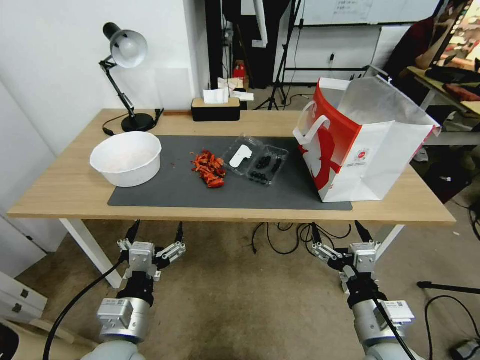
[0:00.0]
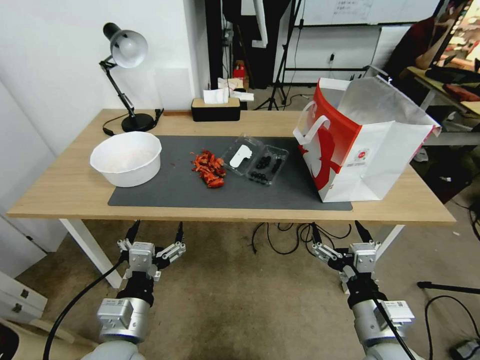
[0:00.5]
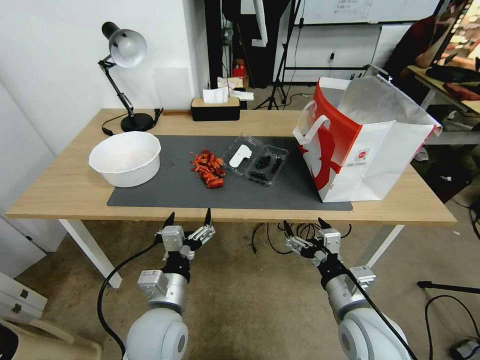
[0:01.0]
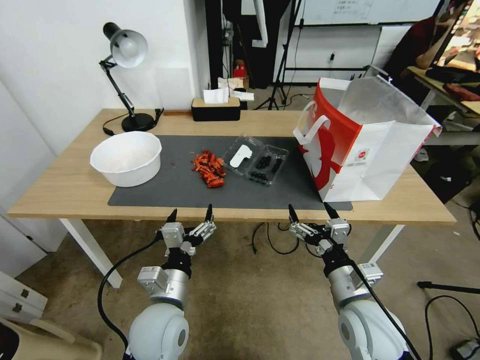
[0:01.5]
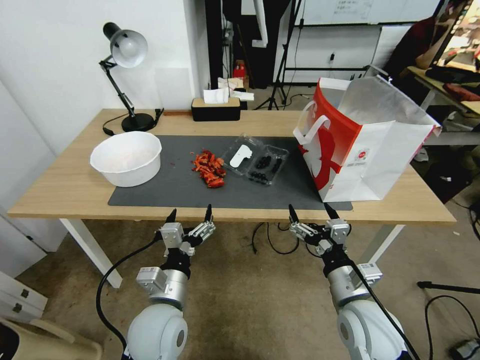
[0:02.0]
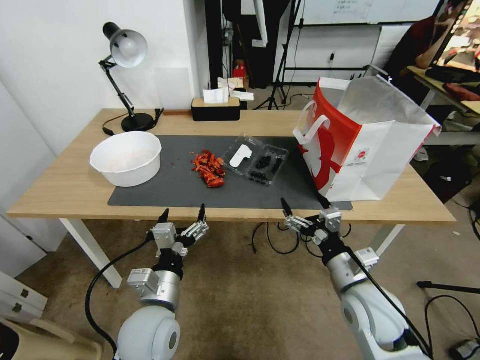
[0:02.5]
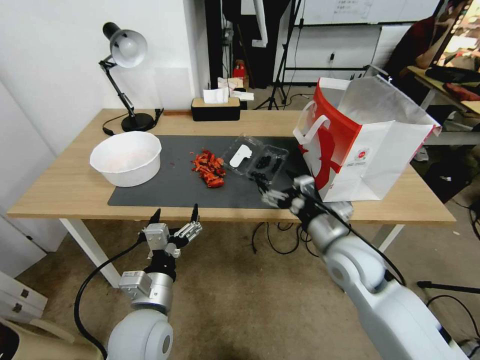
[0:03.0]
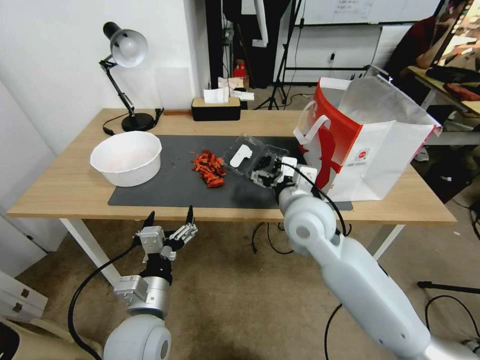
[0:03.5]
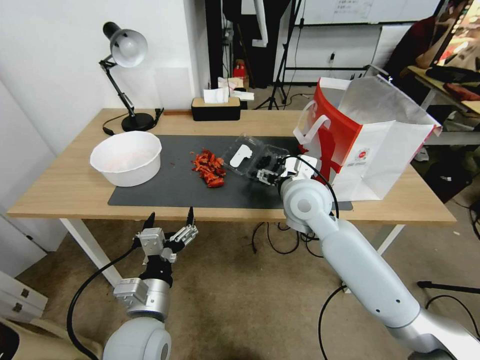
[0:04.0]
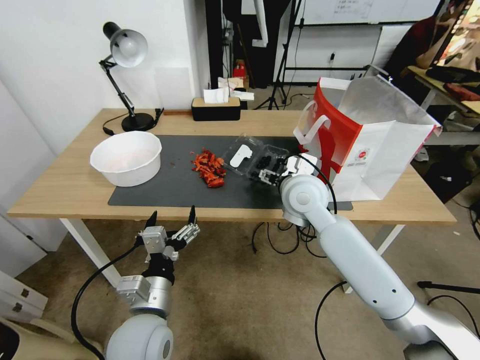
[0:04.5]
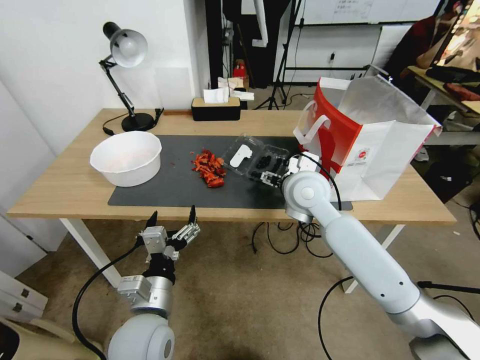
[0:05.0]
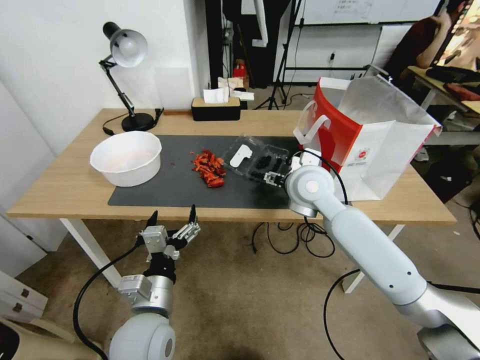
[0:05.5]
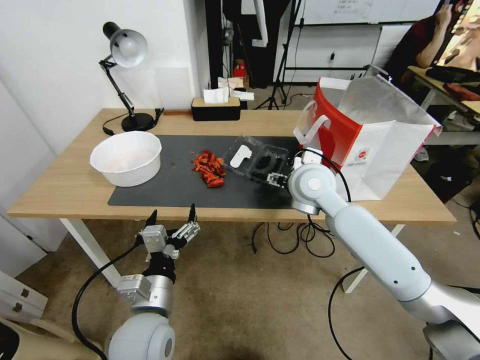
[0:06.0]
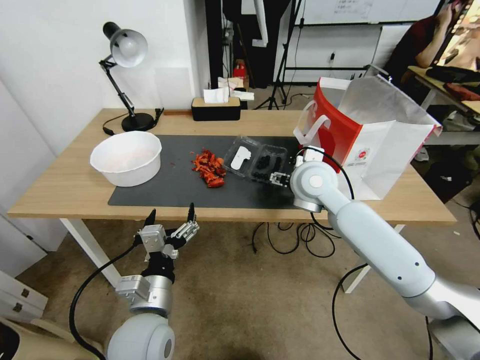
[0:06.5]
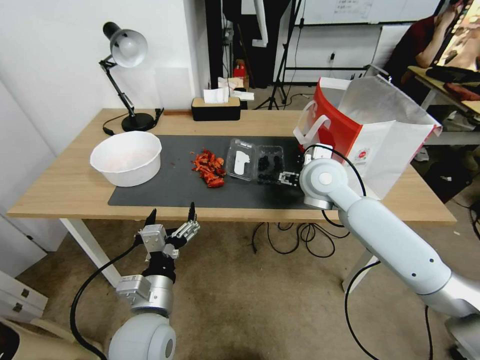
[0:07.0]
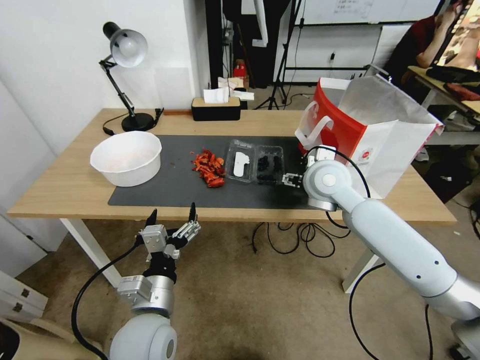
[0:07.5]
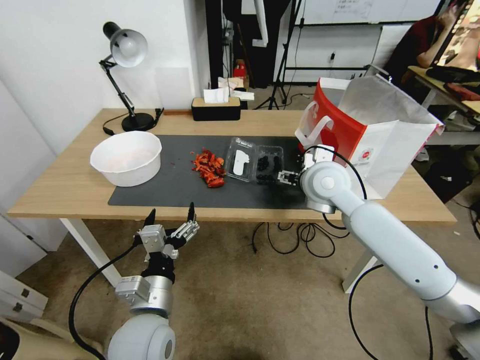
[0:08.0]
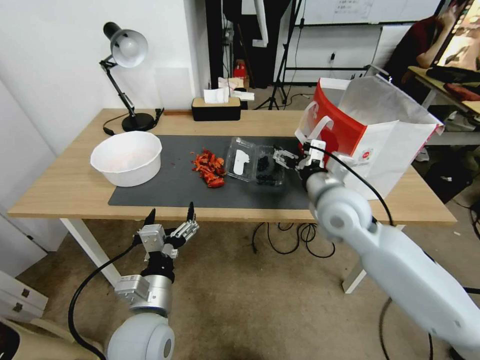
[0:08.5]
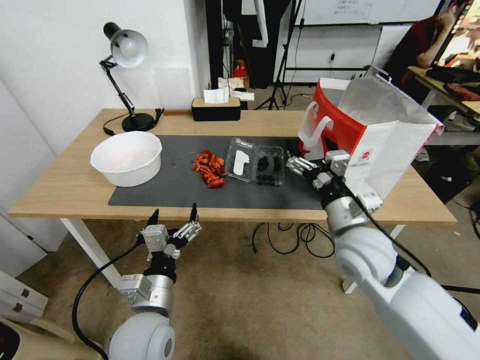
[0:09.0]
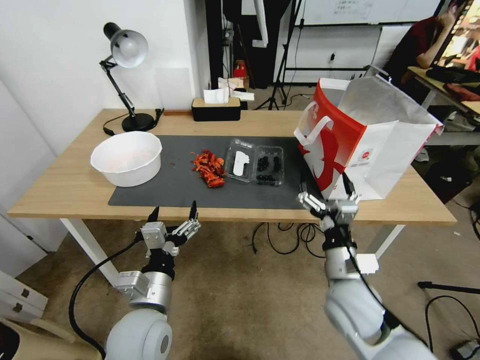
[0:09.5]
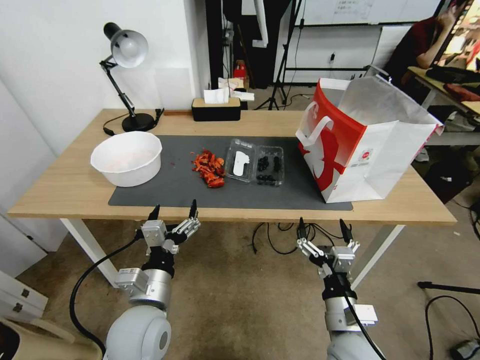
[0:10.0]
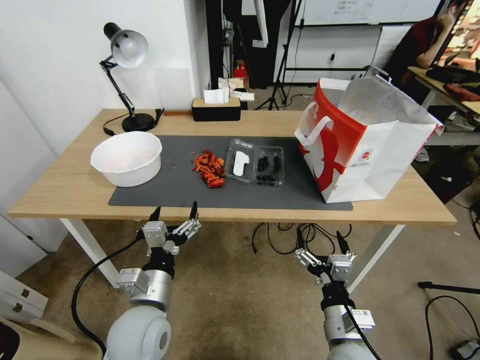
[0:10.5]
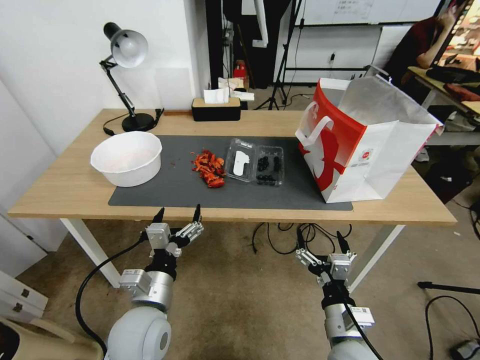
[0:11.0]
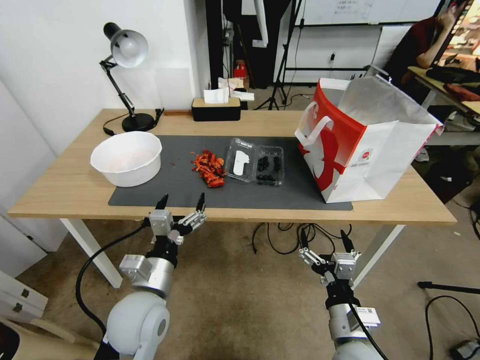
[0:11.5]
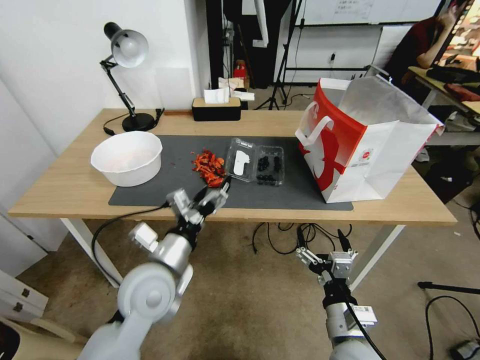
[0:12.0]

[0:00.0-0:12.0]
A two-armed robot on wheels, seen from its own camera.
0:02.0 to 0:04.0: The right gripper shifts roughly 25 cm forward, upward and to the left.
0:04.0 to 0:06.0: The grippers make only small movements.
0:06.0 to 0:08.0: The grippers stay close to where they were, moving slightly.
0:08.0 to 0:10.0: The right gripper is displaced backward and downward by approximately 35 cm.
0:10.0 to 0:12.0: The left gripper is displaced forward by roughly 5 cm.

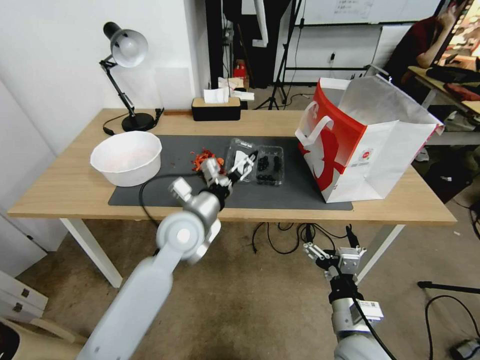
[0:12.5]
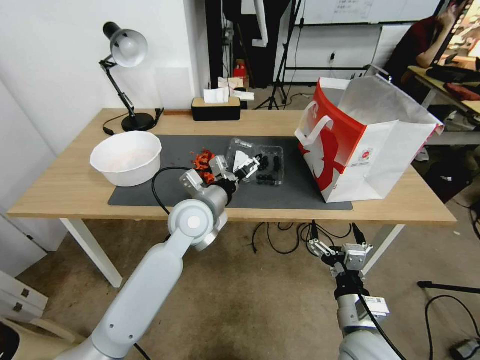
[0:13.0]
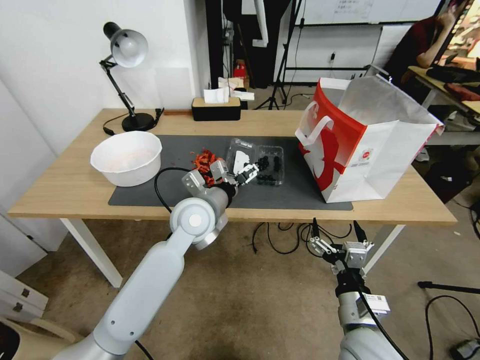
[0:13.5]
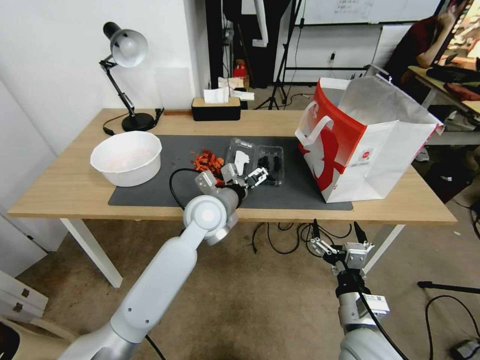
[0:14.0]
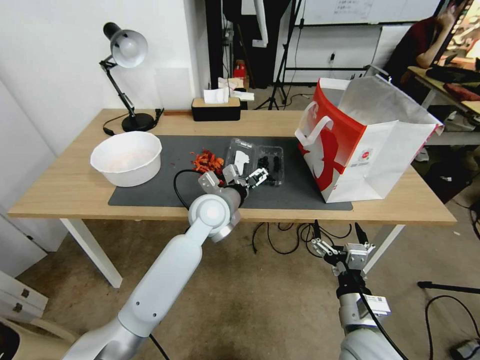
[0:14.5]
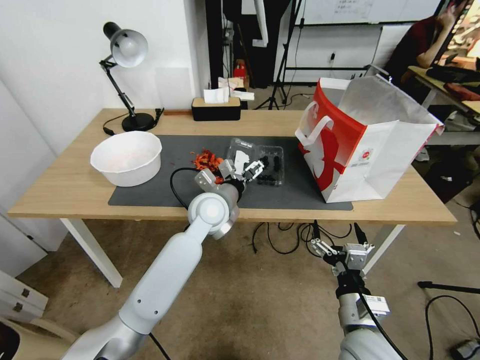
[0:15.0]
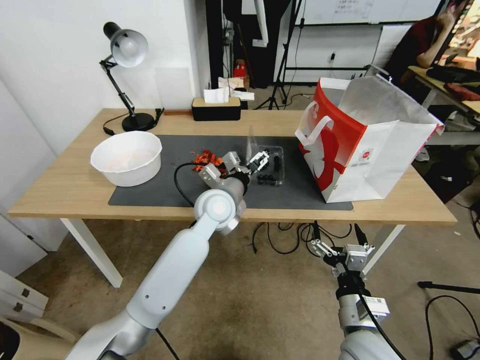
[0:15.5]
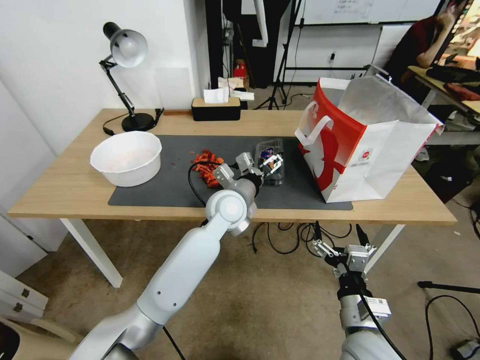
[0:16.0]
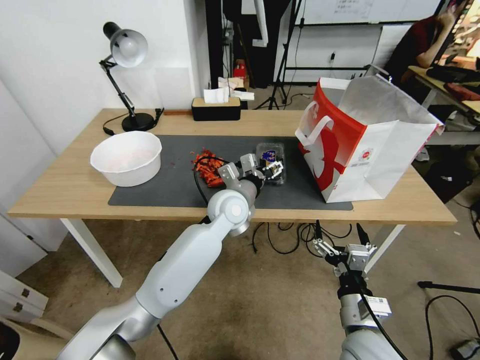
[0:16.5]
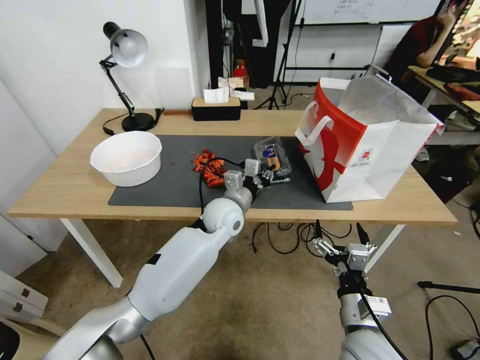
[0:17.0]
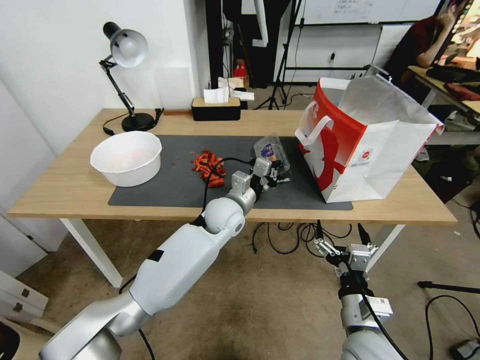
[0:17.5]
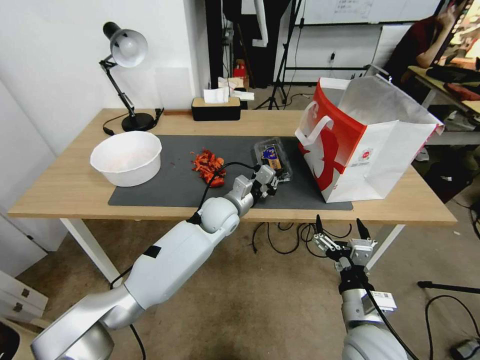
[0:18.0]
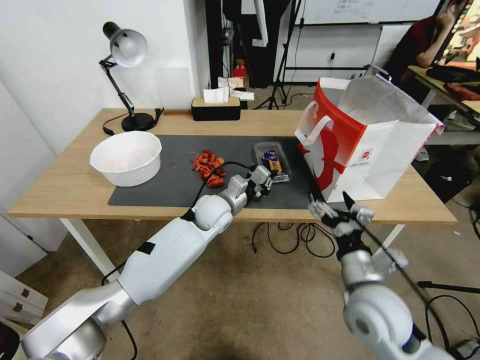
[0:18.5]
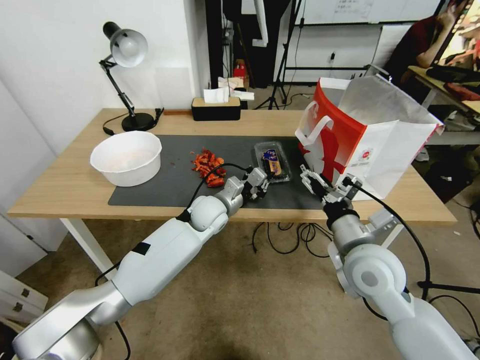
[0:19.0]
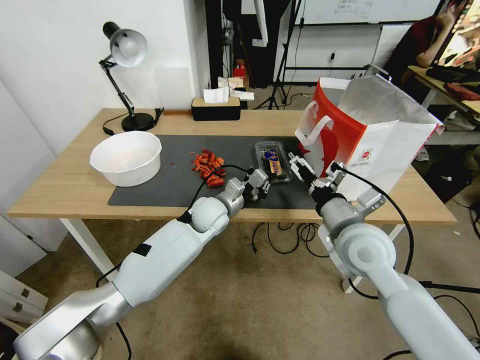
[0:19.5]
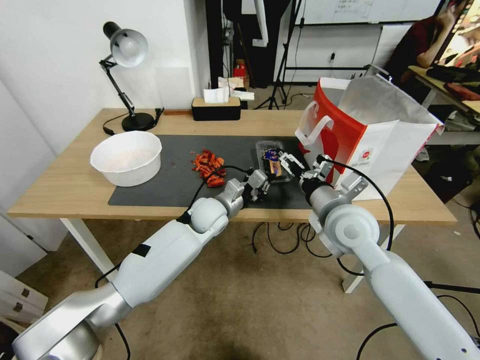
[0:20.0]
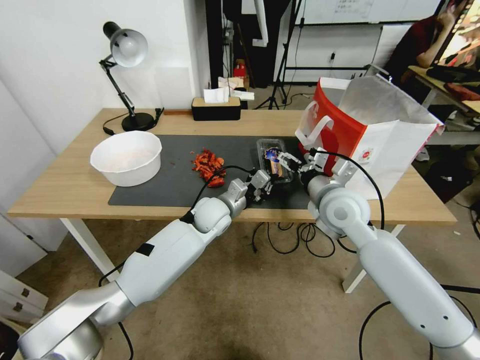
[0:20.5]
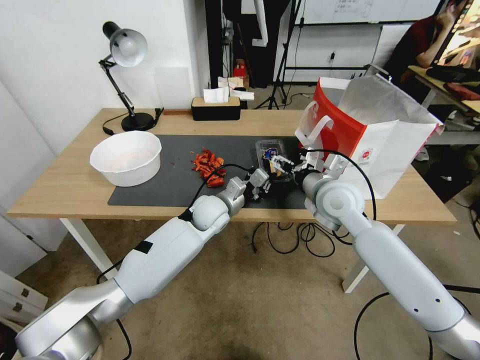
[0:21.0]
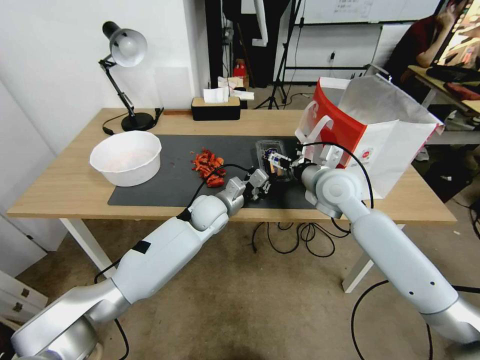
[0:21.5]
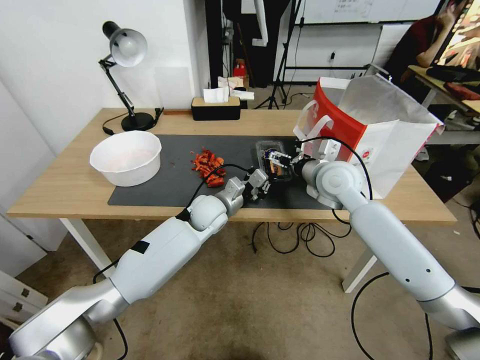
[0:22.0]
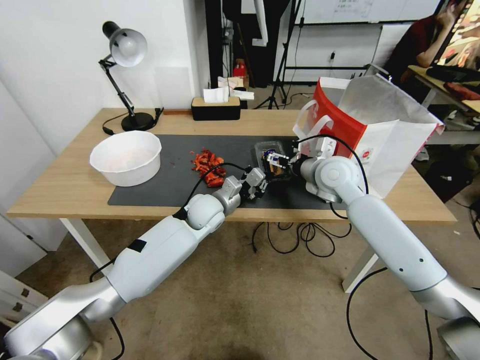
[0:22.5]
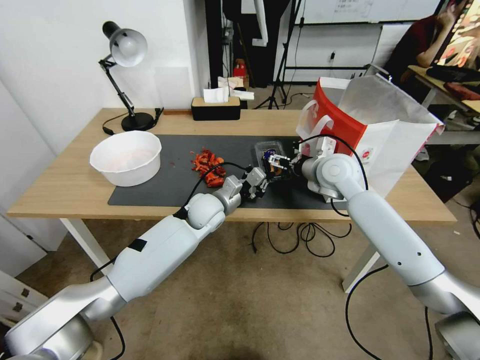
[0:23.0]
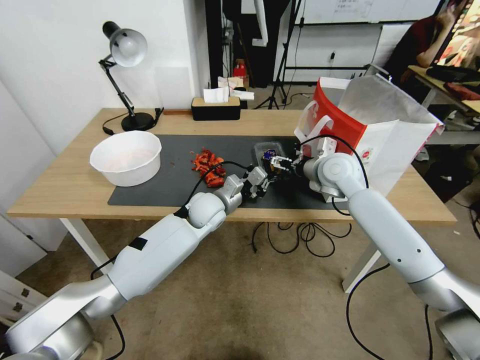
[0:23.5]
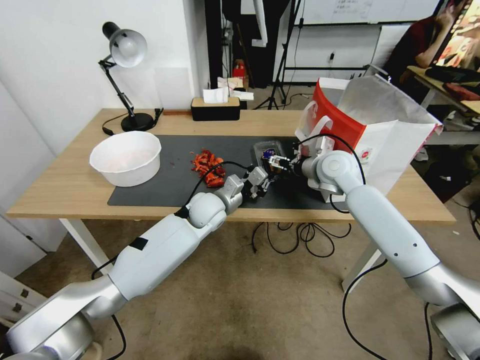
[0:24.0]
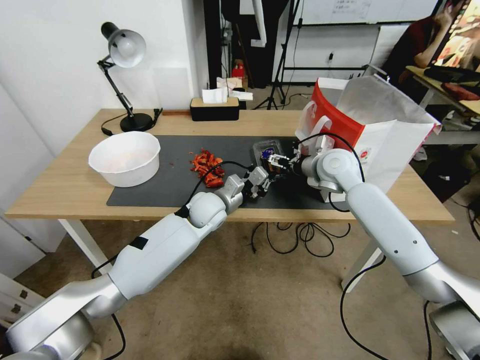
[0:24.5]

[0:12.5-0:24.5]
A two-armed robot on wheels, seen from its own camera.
0:12.5 to 0:14.5: The left gripper moves forward, some 5 cm.
0:14.5 to 0:16.5: The grippers stay close to where they were, moving slightly.
0:16.5 to 0:18.5: The right gripper goes about 5 cm upward, while the left gripper travels downward by some 5 cm, and closes its fingers.
0:18.5 to 0:20.5: The right gripper moves forward and upward, about 20 cm.
0:20.5 to 0:22.5: The right gripper shifts approximately 10 cm forward.
0:22.5 to 0:24.5: There are only small adjustments of the grippers.

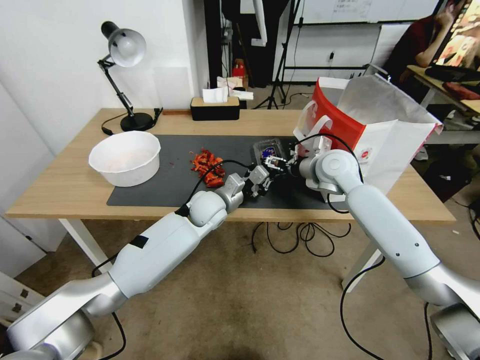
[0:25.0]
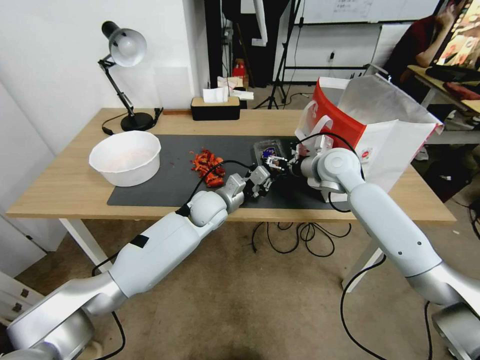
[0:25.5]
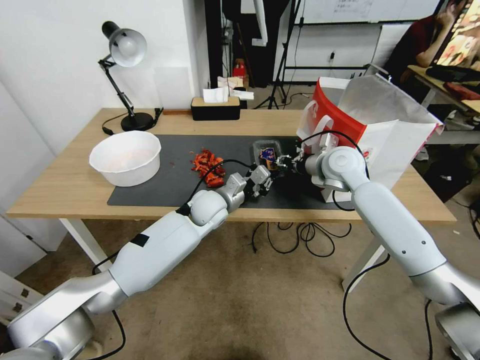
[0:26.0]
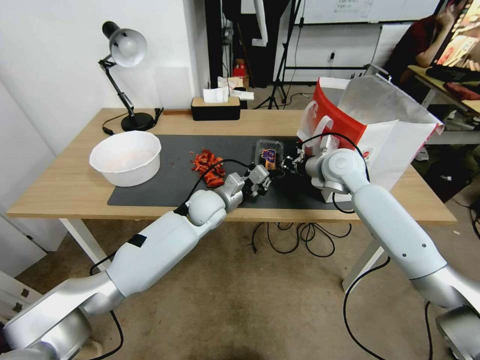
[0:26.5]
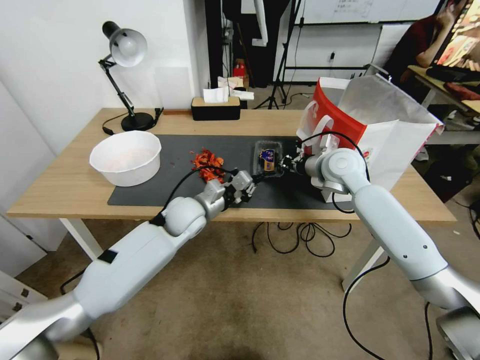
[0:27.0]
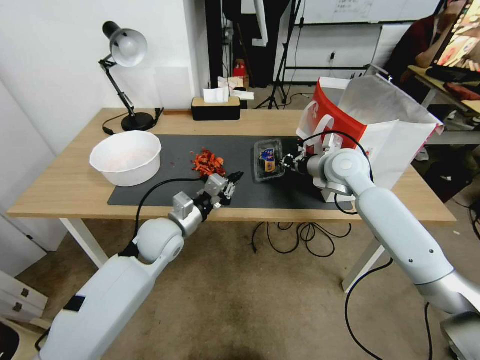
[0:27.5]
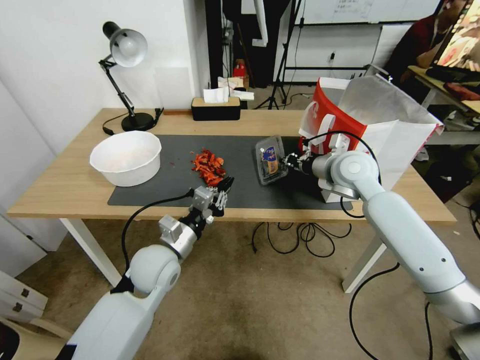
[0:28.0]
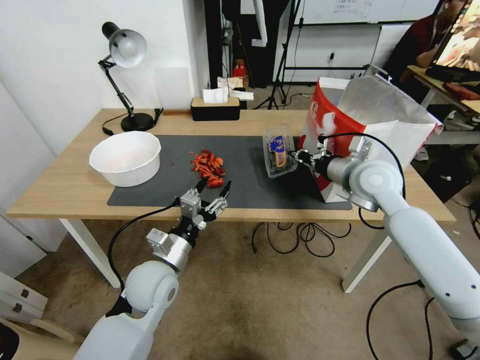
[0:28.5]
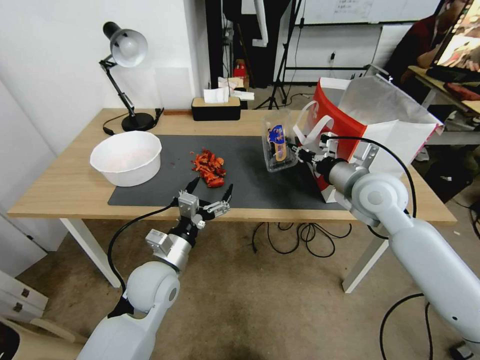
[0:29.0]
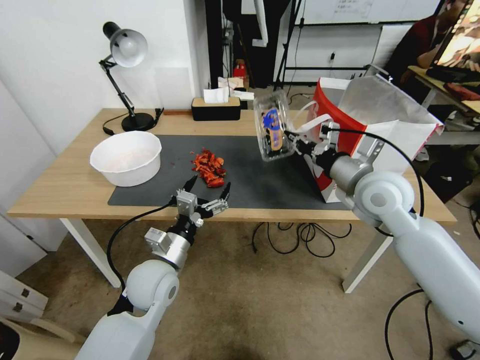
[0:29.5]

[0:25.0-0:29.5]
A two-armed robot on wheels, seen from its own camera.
0:25.0 to 0:27.0: The left gripper ends up approximately 5 cm from where it was. The right gripper closes its fingers.
0:27.0 to 0:29.5: Both grippers travel together backward, approximately 15 cm. The left gripper opens.
